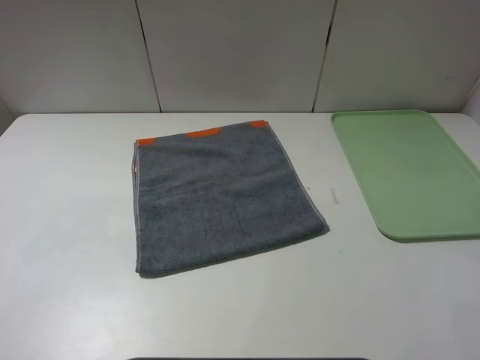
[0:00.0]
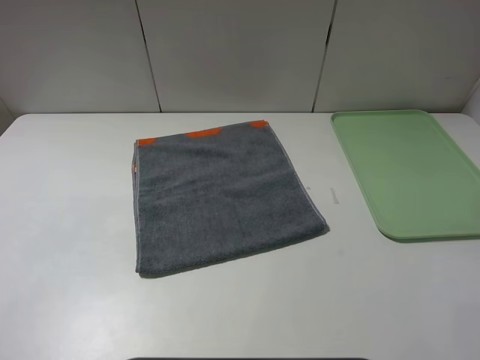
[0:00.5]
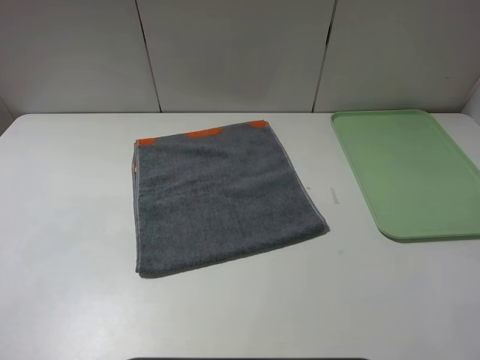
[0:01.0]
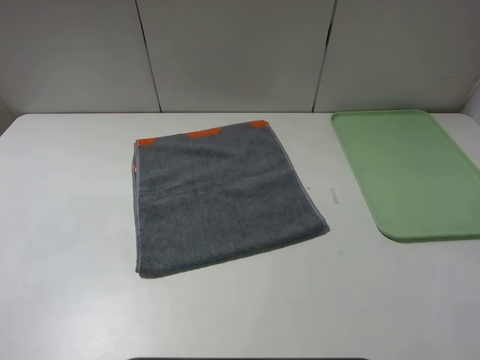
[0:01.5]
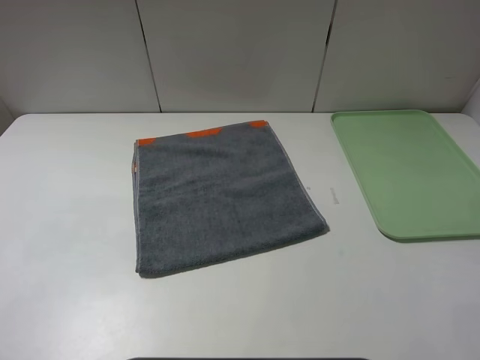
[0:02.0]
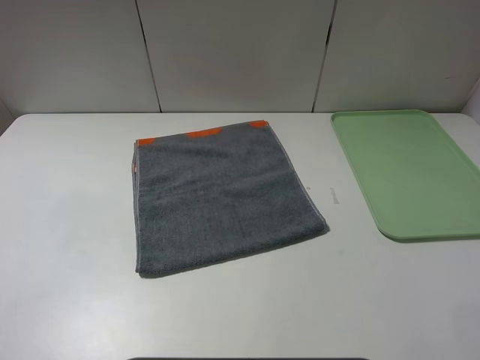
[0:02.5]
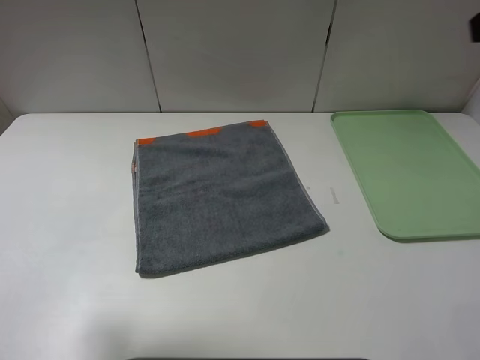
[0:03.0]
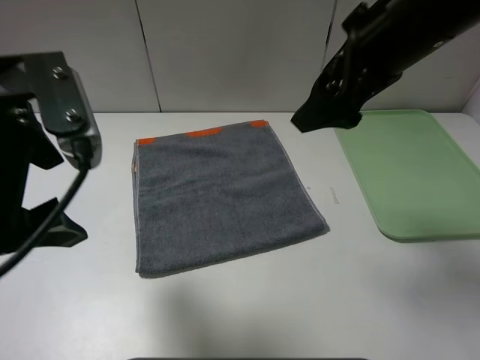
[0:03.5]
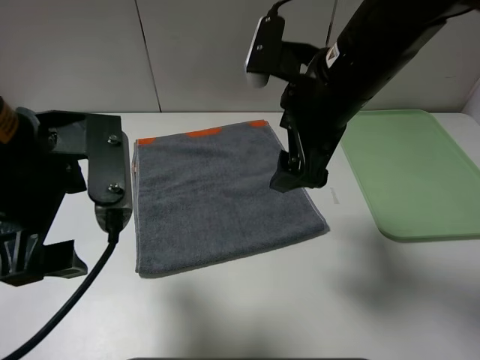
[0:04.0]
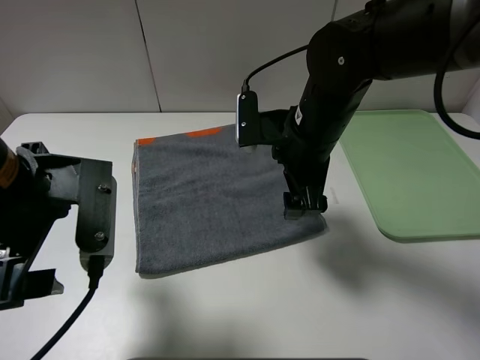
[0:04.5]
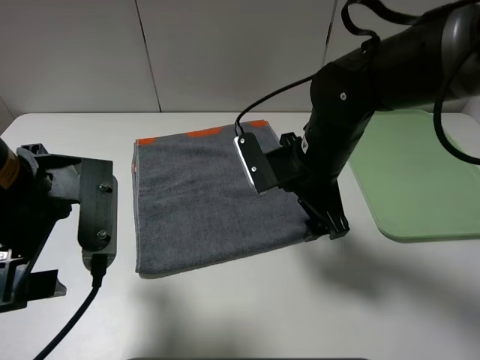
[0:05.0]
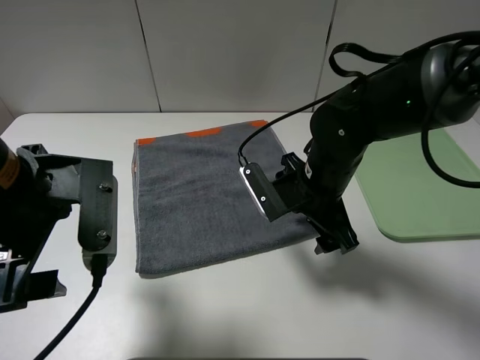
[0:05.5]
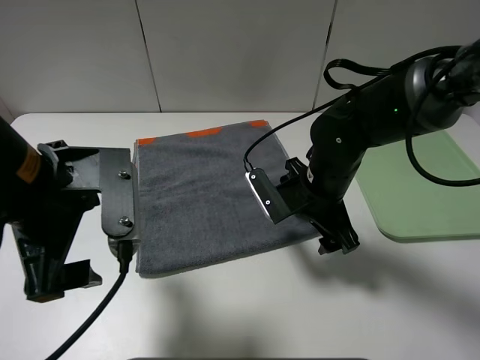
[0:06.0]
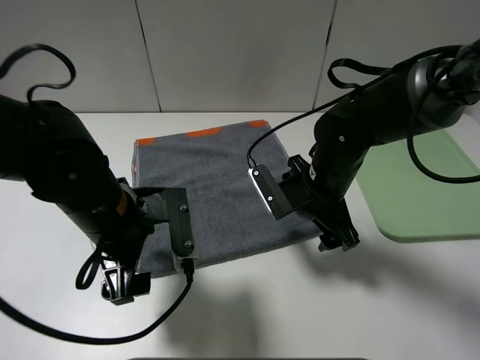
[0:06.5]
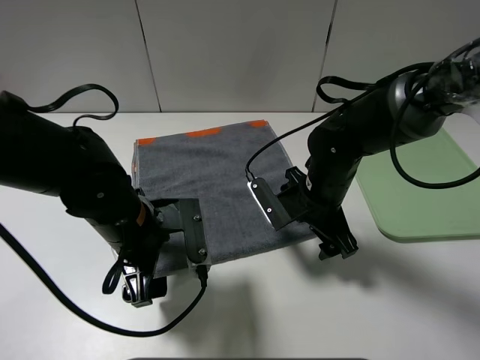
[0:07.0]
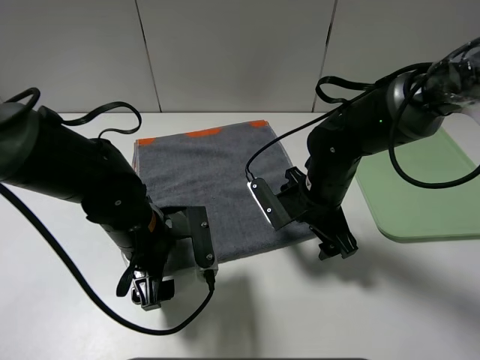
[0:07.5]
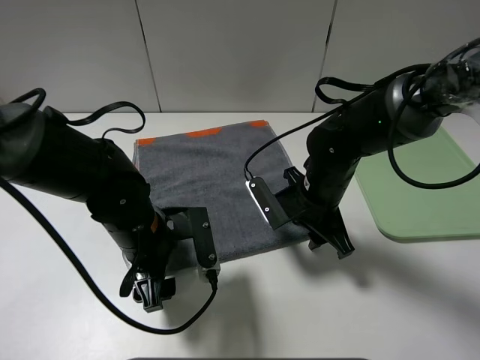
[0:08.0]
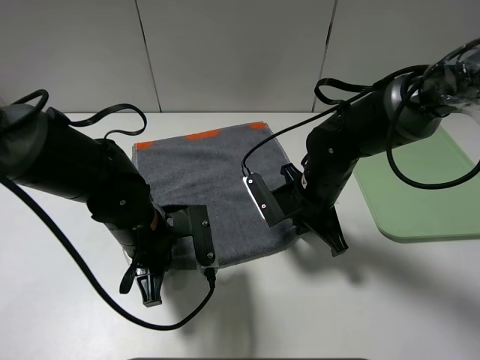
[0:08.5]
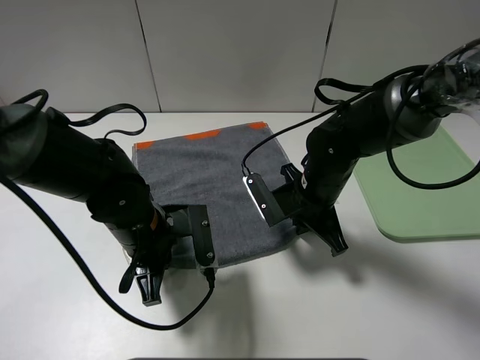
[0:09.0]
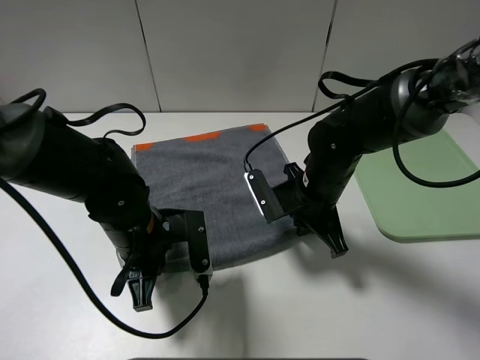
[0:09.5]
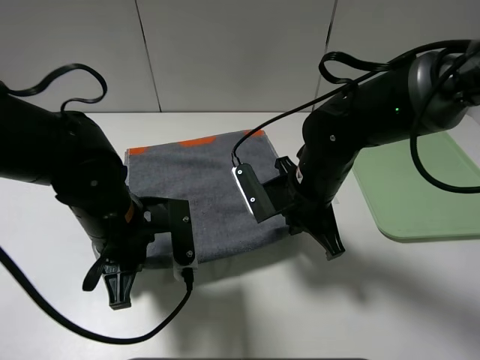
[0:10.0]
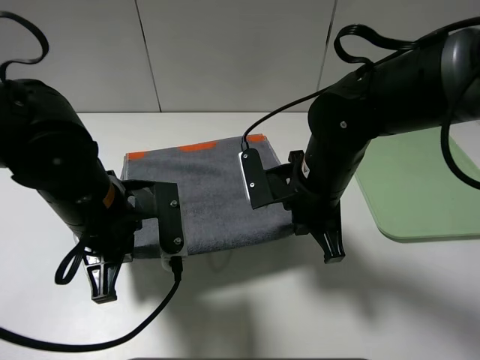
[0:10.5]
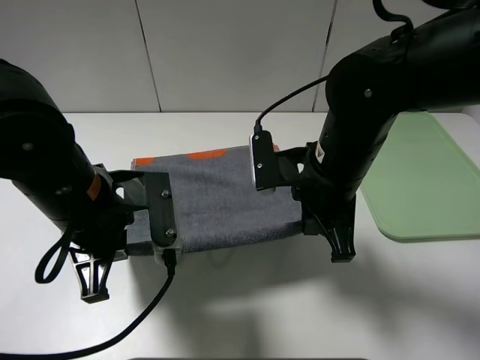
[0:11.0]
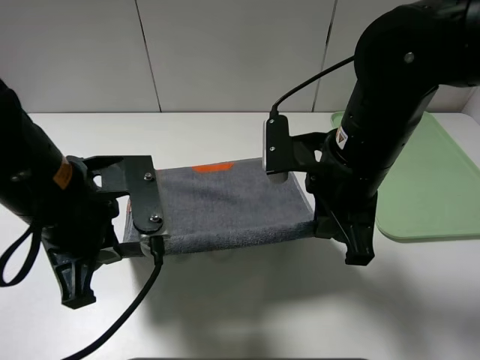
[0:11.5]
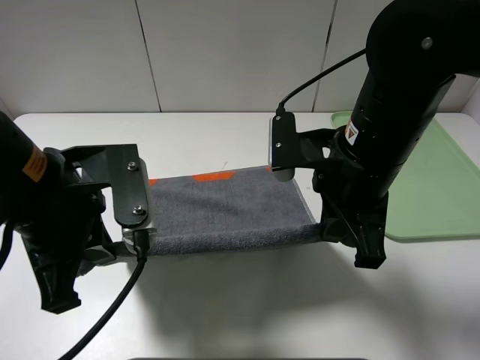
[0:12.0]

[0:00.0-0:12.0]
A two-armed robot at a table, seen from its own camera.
0:00.0 to 0:02.0: The two grippers keep their place.
0:02.0 to 0:04.0: The right gripper travels forward and to the left by some 30 cm; the left gripper moves forward and to the right, about 25 cm.
0:04.0 to 0:06.0: The right gripper travels downward by about 15 cm.
0:06.0 to 0:08.0: The left gripper shifts roughly 15 cm downward. The right gripper closes.
0:08.0 to 0:10.0: The left gripper closes up, while the right gripper closes up.
0:10.0 to 0:12.0: The grippers both shift upward by roughly 10 cm.

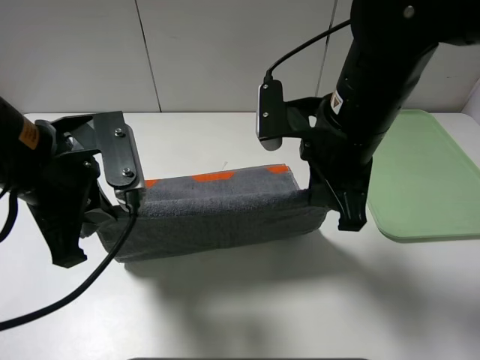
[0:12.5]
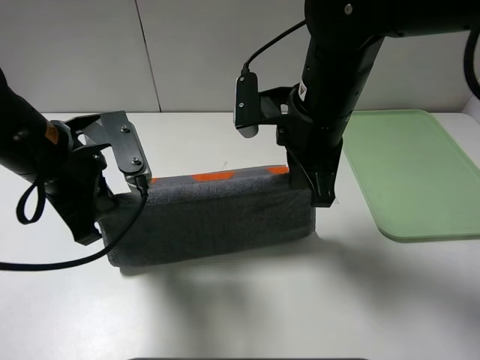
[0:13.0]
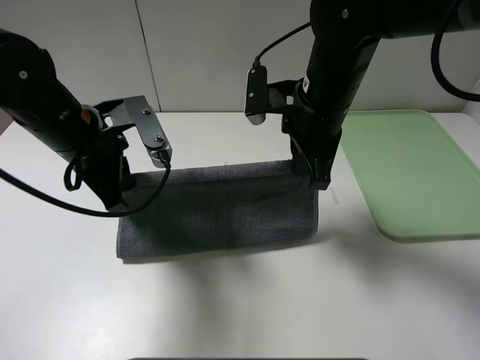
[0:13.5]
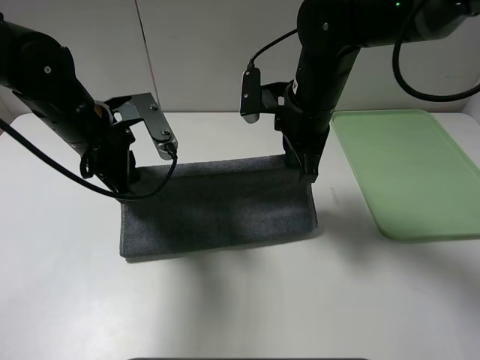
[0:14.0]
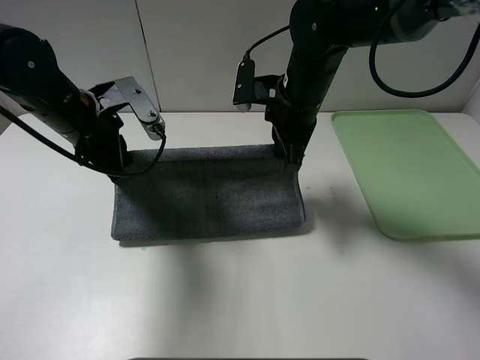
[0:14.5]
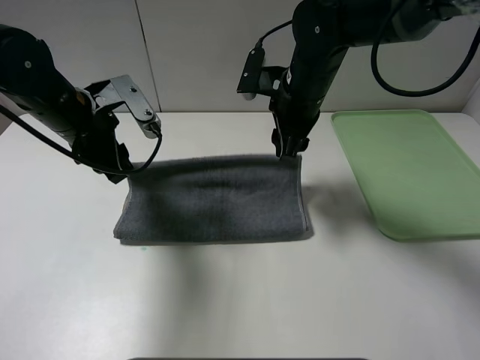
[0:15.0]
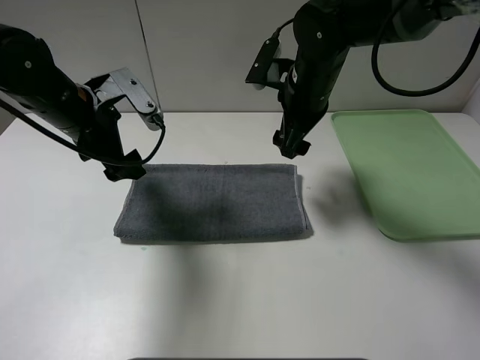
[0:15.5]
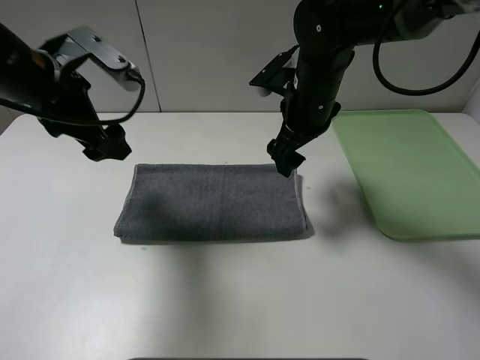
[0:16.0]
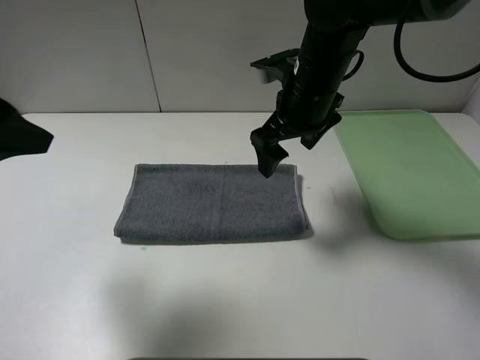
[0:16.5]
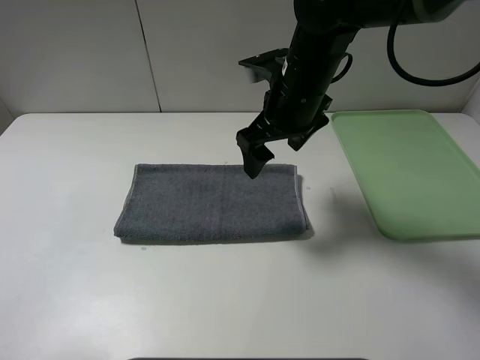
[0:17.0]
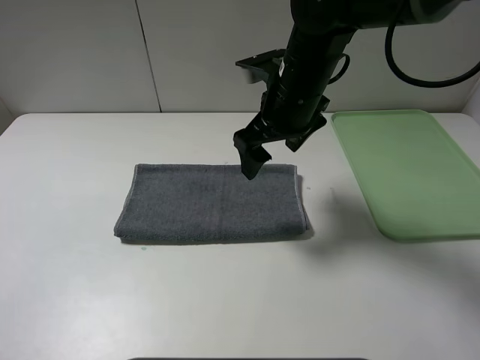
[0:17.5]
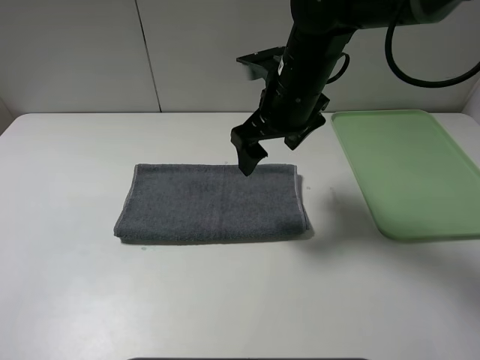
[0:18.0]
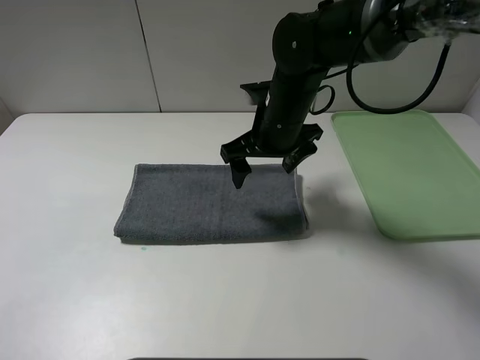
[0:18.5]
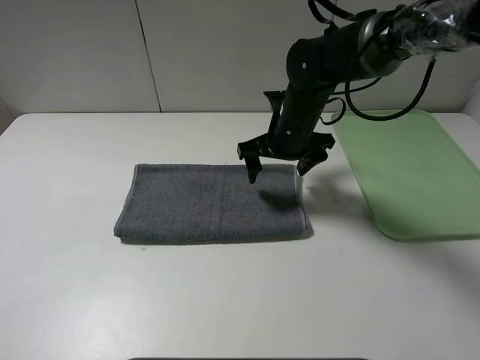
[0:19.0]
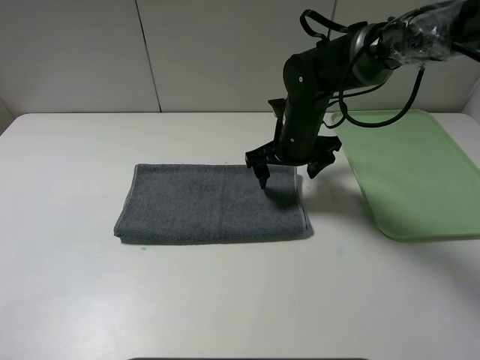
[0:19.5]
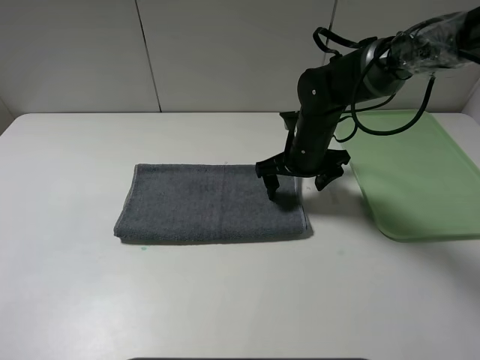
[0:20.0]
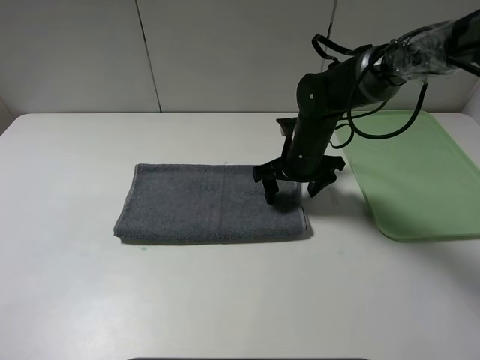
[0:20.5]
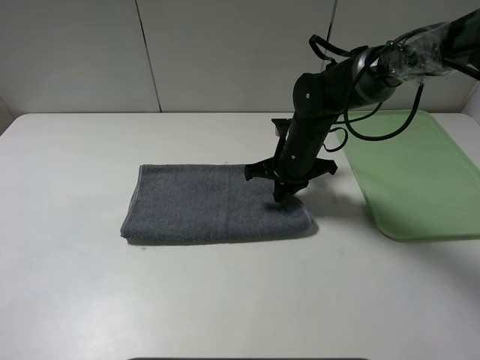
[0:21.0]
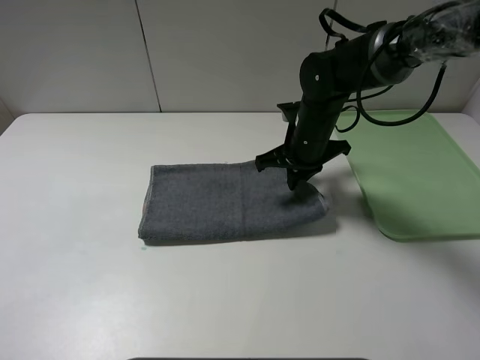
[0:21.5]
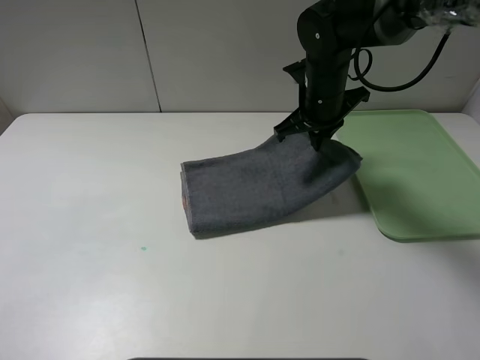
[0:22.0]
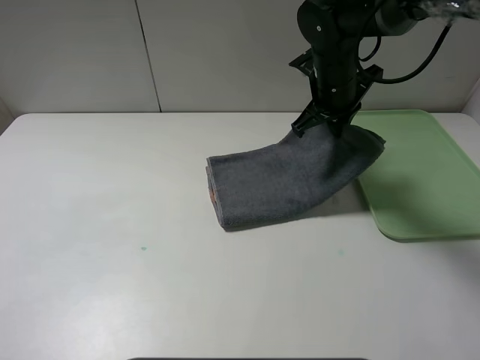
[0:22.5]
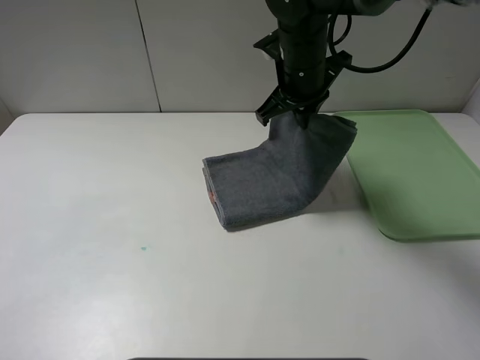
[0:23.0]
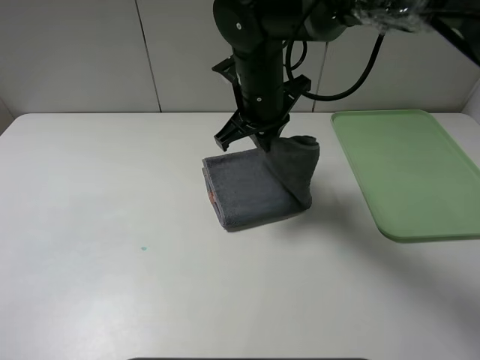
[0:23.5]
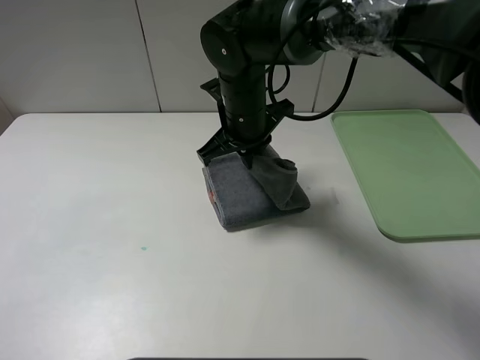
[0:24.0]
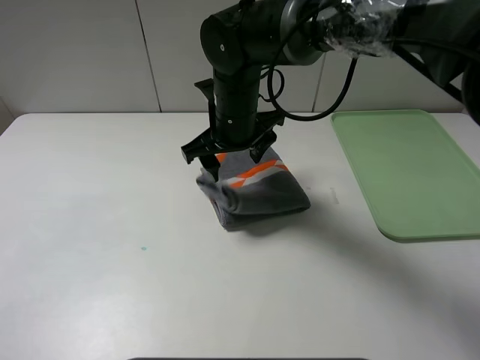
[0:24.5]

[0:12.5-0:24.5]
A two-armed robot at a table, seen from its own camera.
Step, 0:12.5 to 0:15.0: Fold the grey towel upwards.
Step, 0:15.5 to 0:24.5: Fold the grey towel from right to left with right gripper.
0:12.5 to 0:14.5: The two grippers go roughly 10 cm forward.
0:14.5 to 0:16.5: The left gripper shifts approximately 20 cm backward and upward, and opens up, while the right gripper opens up.
0:16.5 to 0:18.5: The left gripper goes some 15 cm backward; the right gripper travels downward by about 5 cm.
0:18.5 to 0:20.5: The right gripper goes approximately 10 cm downward and to the right.
0:20.5 to 0:22.5: The right gripper travels upward by roughly 10 cm, and closes its fingers.
0:22.5 to 0:24.5: The right gripper moves to the left and backward, roughly 15 cm, and opens its fingers.

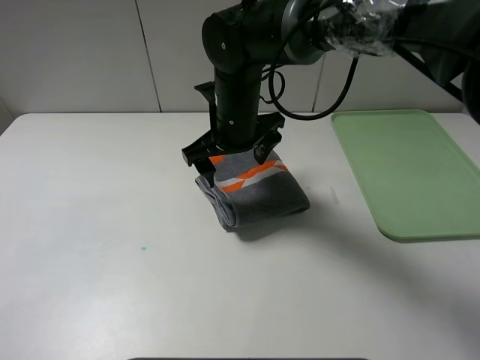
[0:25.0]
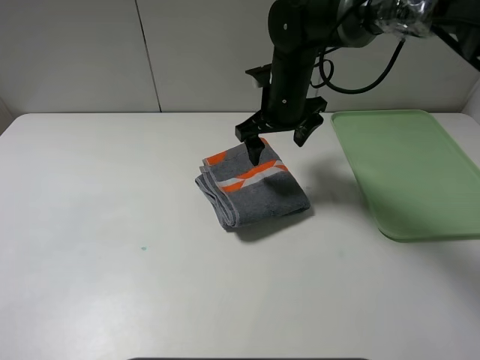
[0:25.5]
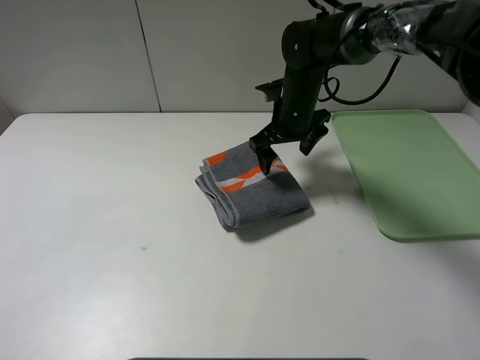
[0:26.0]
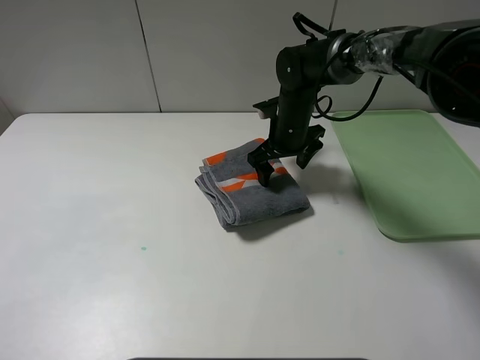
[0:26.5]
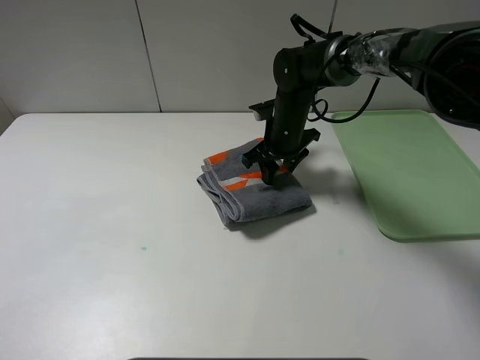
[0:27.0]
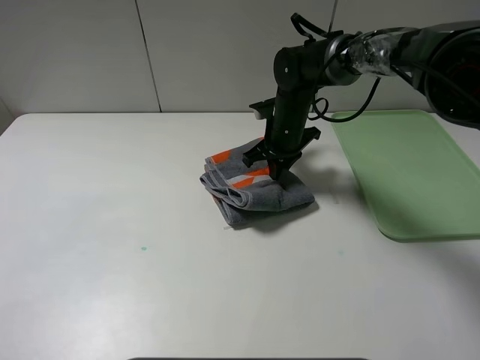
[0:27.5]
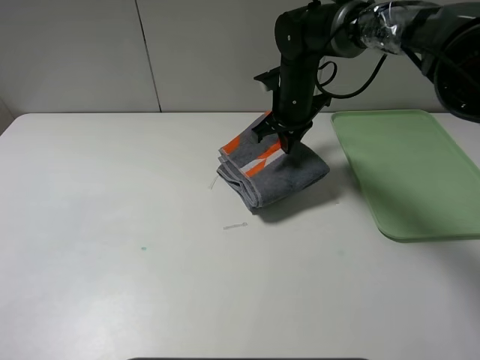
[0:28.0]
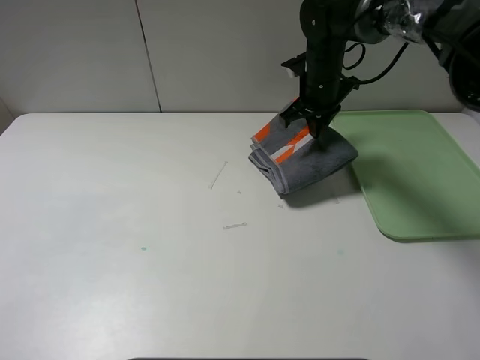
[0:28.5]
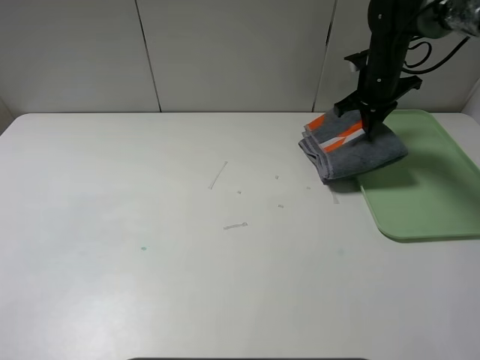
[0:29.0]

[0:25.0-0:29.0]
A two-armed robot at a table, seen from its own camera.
0:25.0 to 0:27.0: The right gripper shifts about 15 cm to the right, forward and downward, and closes its fingers.
0:27.0 to 0:29.0: The right gripper shifts some 20 cm to the right, forward and upward.
